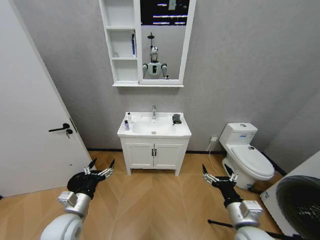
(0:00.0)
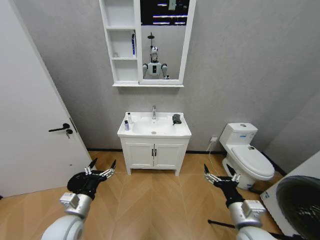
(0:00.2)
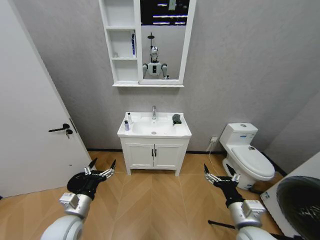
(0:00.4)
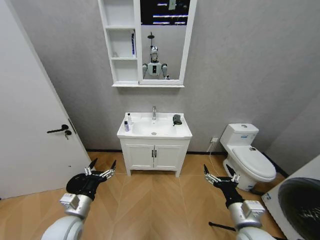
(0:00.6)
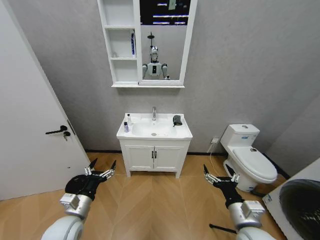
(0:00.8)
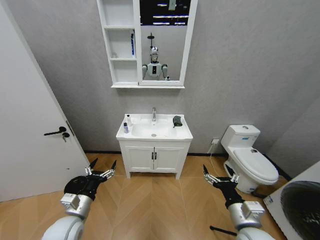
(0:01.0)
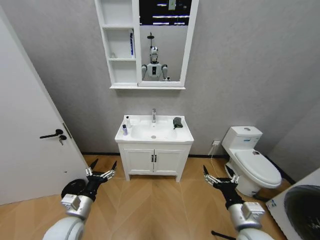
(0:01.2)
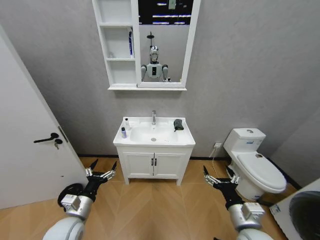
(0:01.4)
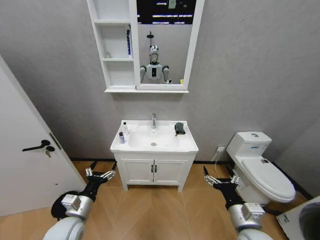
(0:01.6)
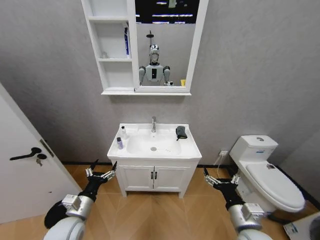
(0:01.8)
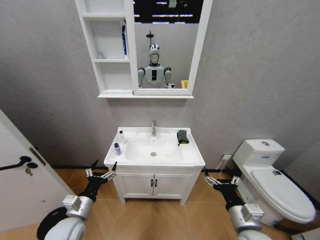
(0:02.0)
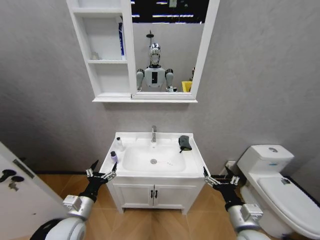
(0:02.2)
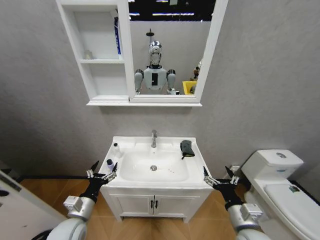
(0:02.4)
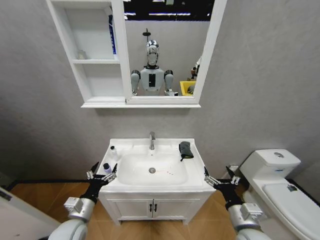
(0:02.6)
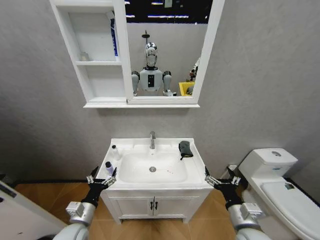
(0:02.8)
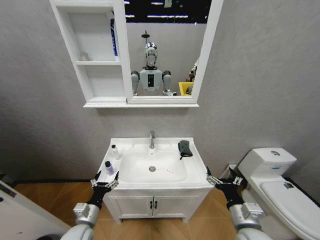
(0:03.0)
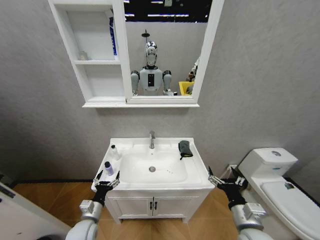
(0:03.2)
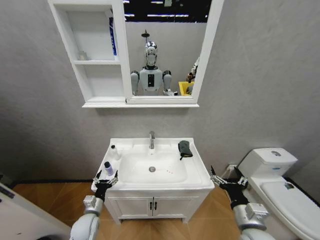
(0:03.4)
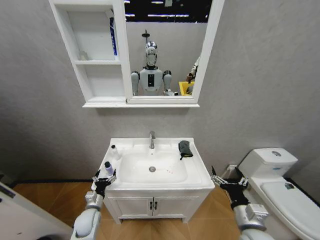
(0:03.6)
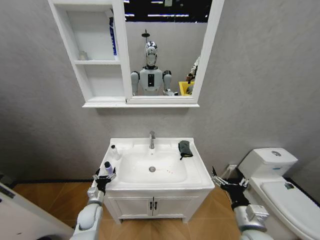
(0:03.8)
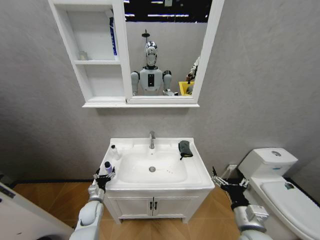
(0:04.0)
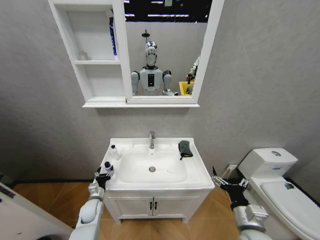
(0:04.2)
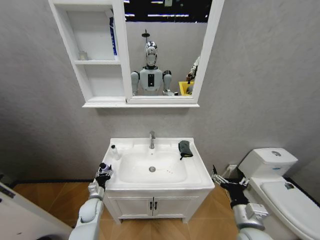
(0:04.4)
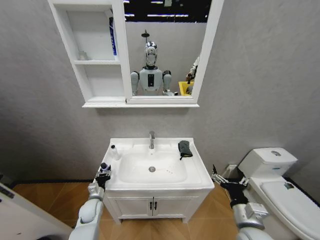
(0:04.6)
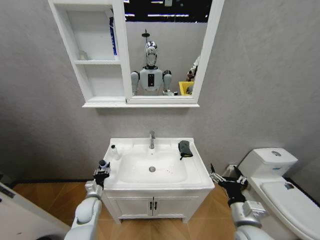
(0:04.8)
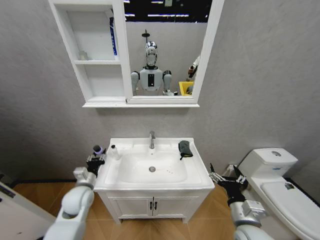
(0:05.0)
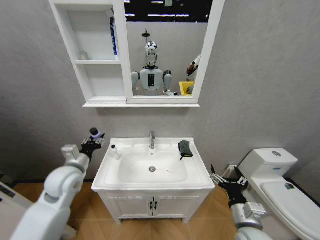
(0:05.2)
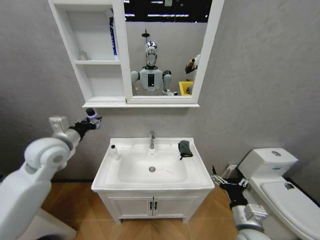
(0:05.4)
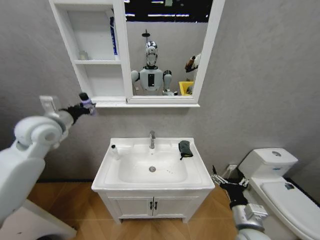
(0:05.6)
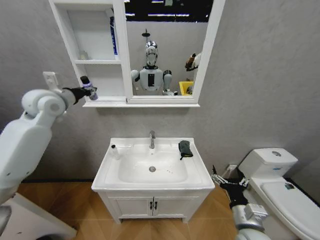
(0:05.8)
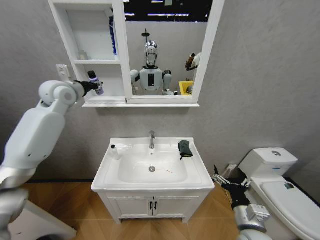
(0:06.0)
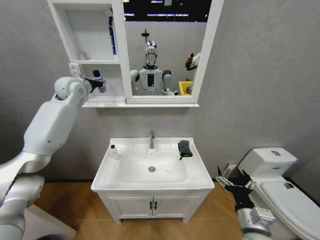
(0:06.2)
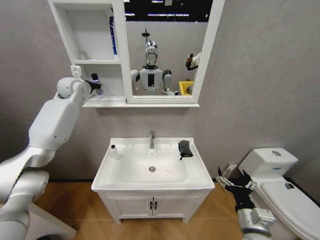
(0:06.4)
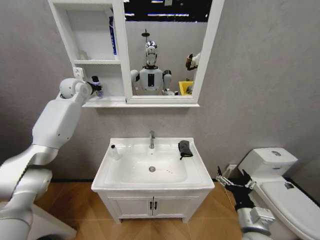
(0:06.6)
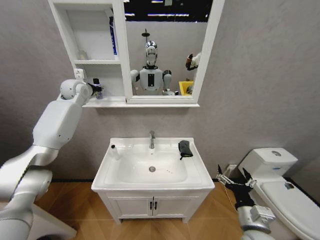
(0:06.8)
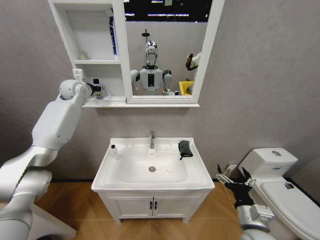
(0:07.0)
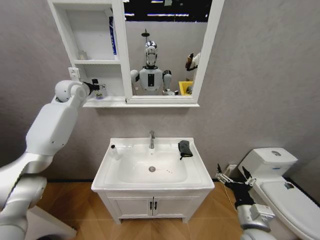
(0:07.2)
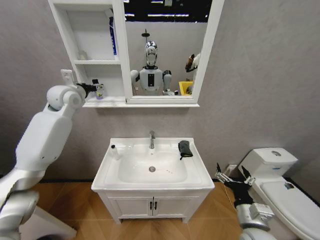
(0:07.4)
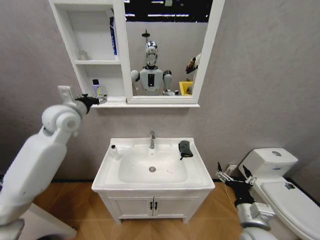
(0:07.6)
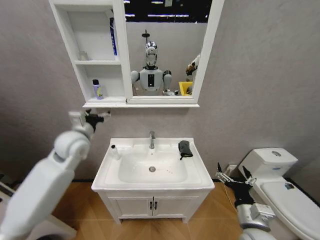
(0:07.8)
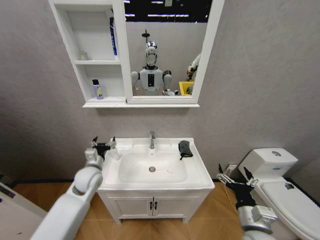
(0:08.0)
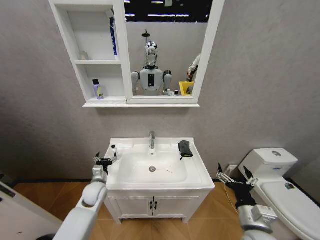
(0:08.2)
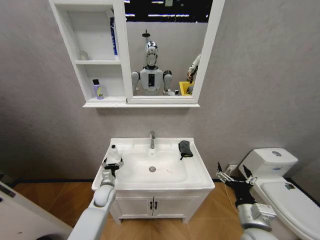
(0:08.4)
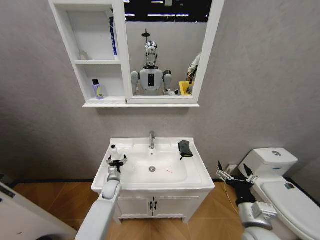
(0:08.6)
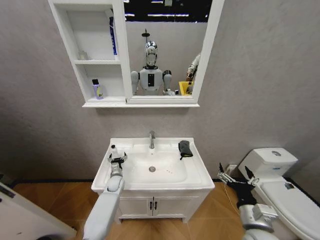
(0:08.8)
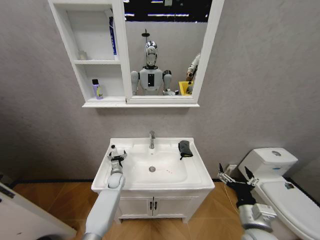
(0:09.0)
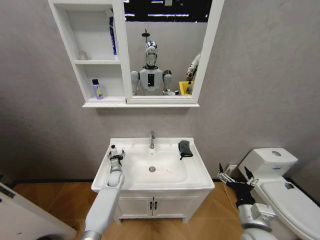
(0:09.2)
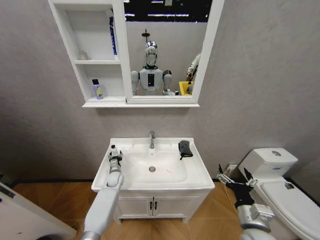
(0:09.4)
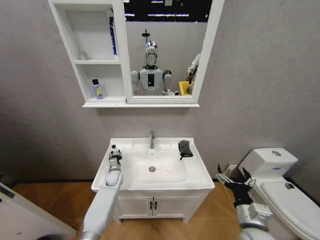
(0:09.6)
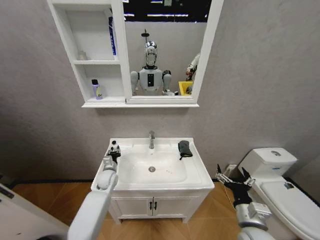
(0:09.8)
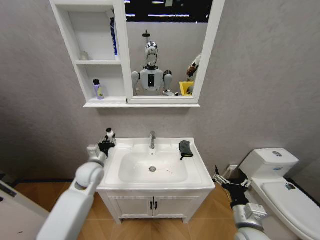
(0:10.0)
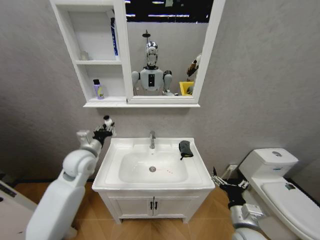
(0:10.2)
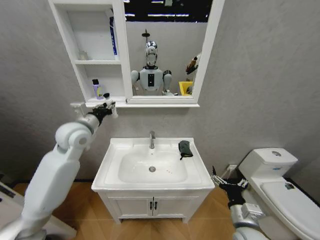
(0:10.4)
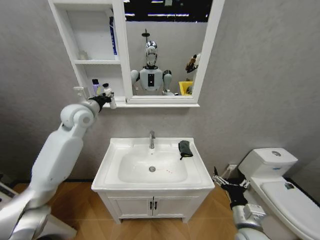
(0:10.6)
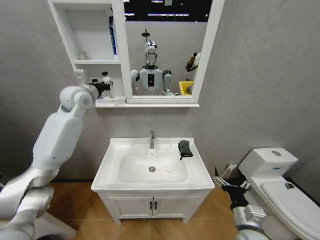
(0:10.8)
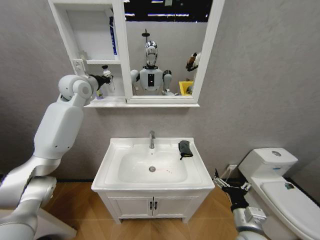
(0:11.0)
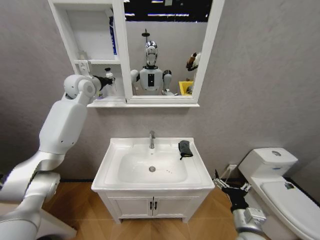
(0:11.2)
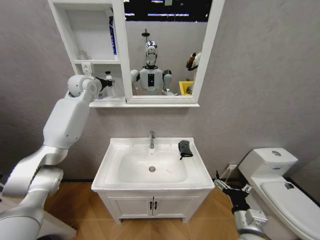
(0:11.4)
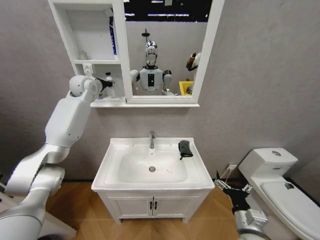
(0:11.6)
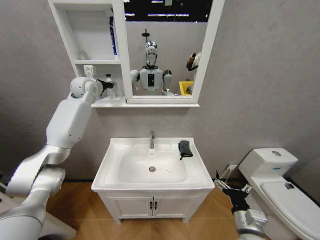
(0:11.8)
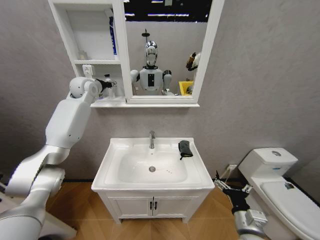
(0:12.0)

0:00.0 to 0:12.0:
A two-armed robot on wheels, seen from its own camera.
Task of the whole recording: Move facial cleanser and shampoo from washbasin to cabinet, then wipe washbasin with towel.
0:01.6 to 0:03.0: The left gripper travels downward by some 5 cm.
0:03.0 to 0:04.4: The left gripper moves forward and downward, approximately 15 cm, and closes up.
0:04.4 to 0:06.0: The left gripper travels upward by approximately 50 cm, and closes its fingers.
0:06.0 to 0:07.6: The left gripper is displaced backward and downward by some 10 cm, and opens.
0:07.6 to 0:09.0: The left gripper goes about 40 cm downward.
0:09.0 to 0:10.4: The left gripper shifts about 40 cm upward, and closes.
0:10.4 to 0:12.0: The left gripper shifts some 25 cm forward and upward, and opens its fingers.

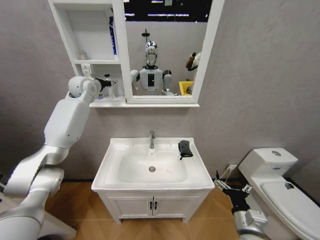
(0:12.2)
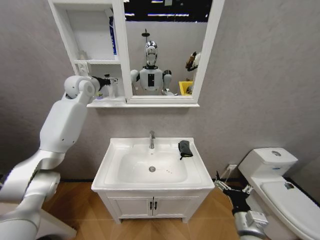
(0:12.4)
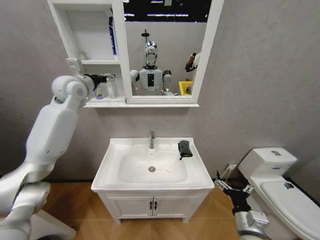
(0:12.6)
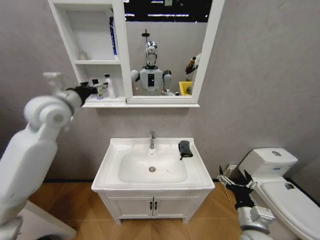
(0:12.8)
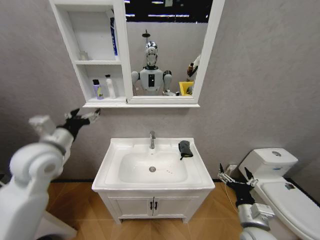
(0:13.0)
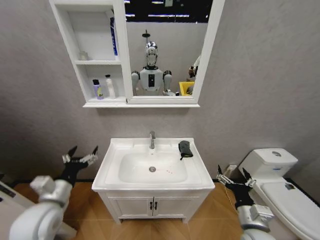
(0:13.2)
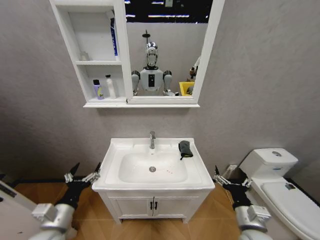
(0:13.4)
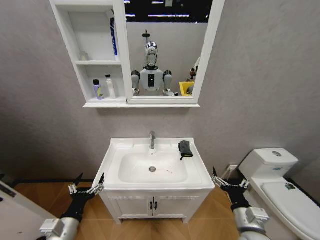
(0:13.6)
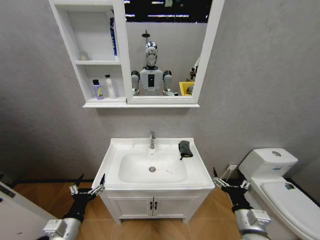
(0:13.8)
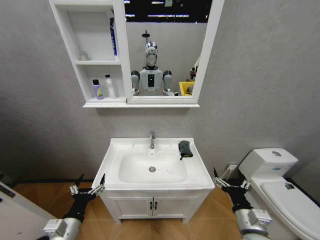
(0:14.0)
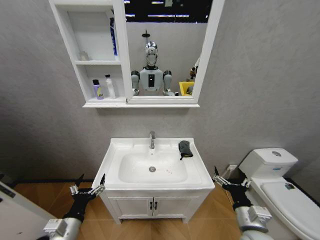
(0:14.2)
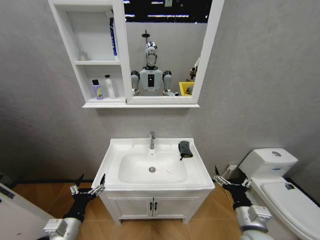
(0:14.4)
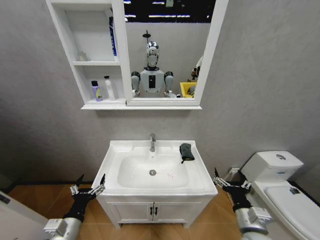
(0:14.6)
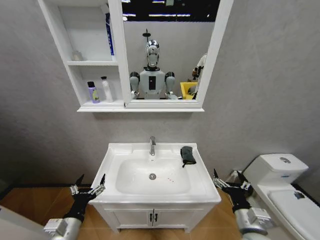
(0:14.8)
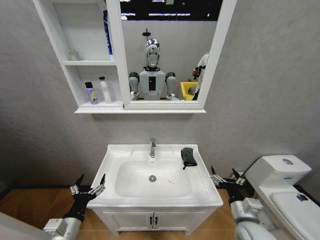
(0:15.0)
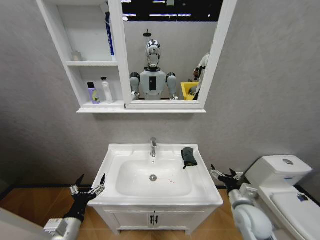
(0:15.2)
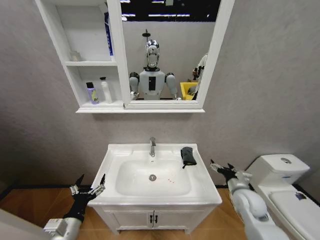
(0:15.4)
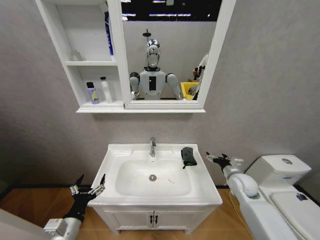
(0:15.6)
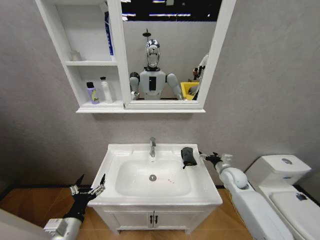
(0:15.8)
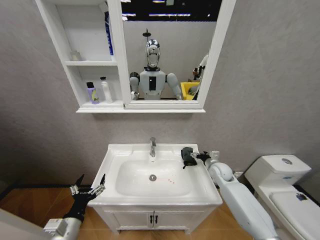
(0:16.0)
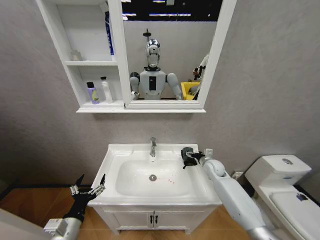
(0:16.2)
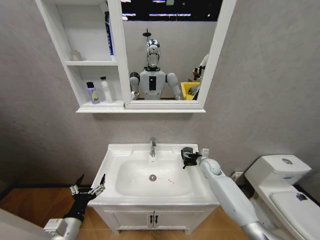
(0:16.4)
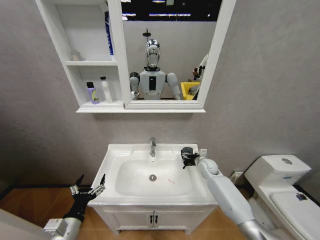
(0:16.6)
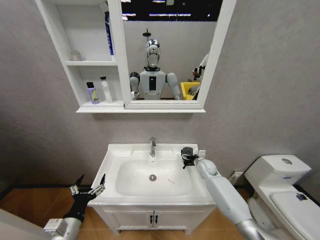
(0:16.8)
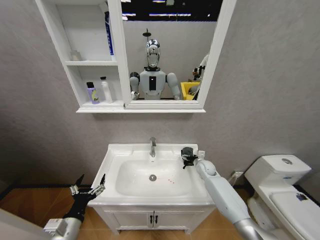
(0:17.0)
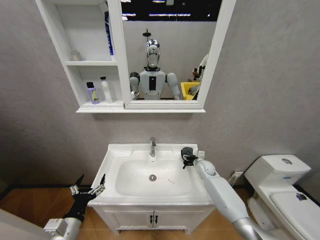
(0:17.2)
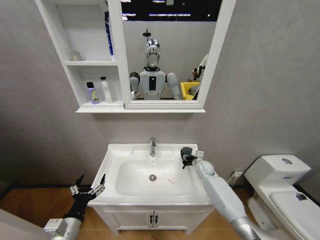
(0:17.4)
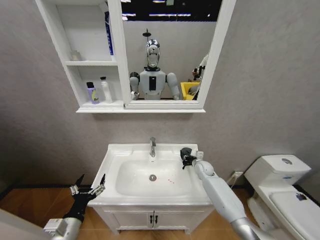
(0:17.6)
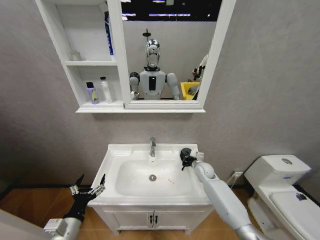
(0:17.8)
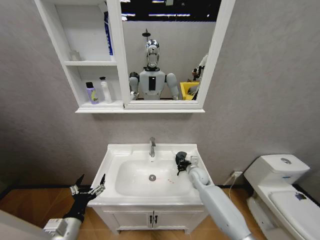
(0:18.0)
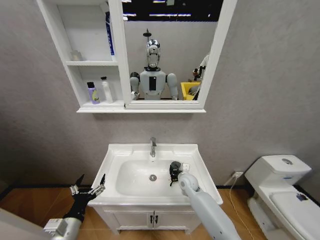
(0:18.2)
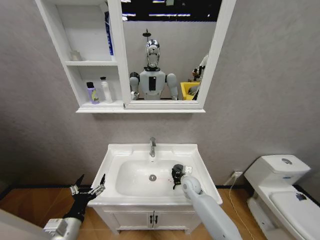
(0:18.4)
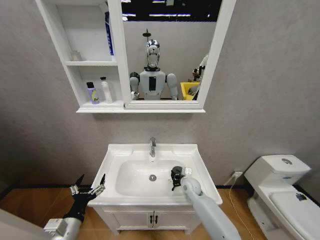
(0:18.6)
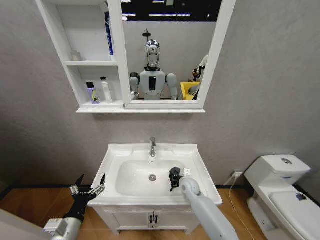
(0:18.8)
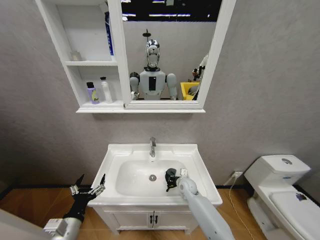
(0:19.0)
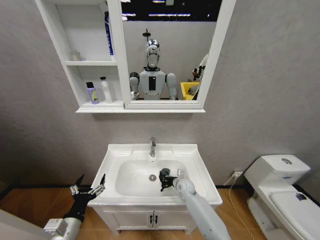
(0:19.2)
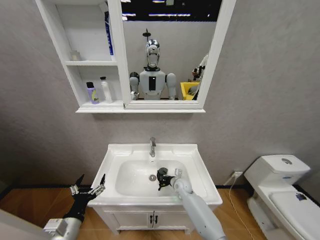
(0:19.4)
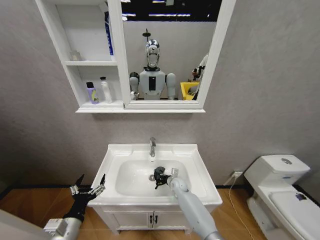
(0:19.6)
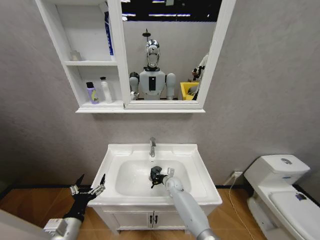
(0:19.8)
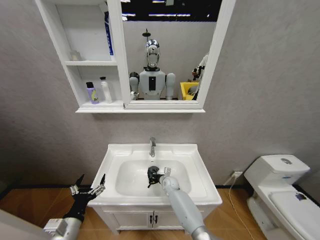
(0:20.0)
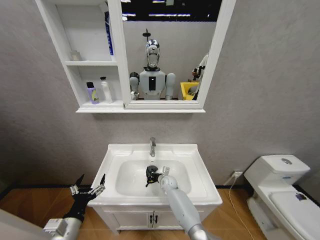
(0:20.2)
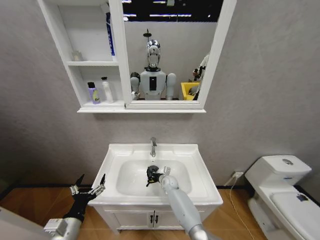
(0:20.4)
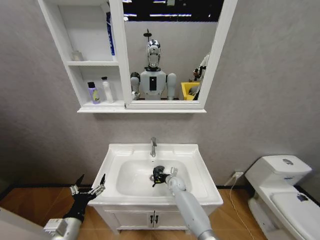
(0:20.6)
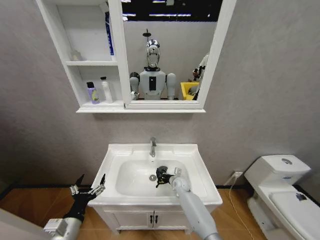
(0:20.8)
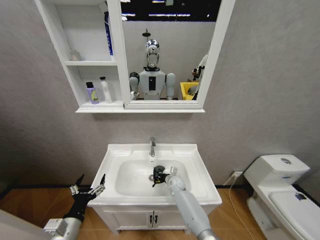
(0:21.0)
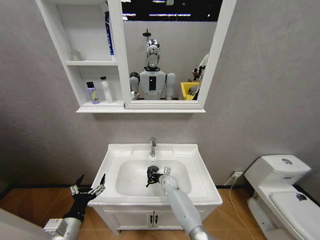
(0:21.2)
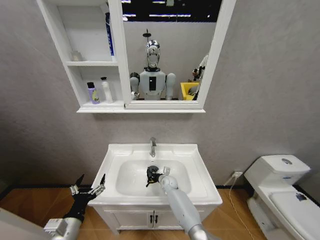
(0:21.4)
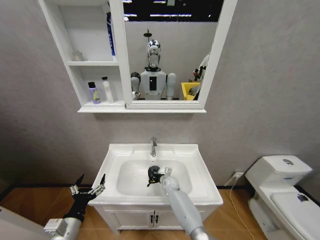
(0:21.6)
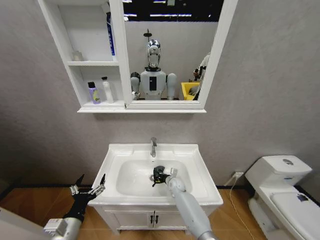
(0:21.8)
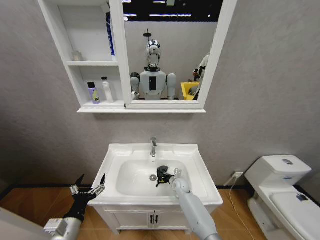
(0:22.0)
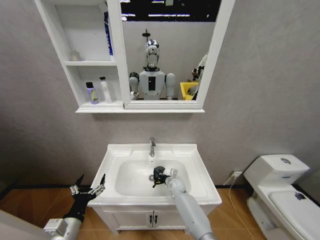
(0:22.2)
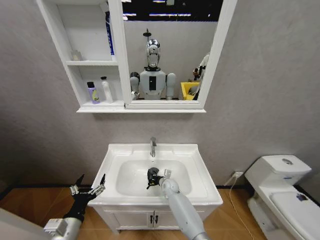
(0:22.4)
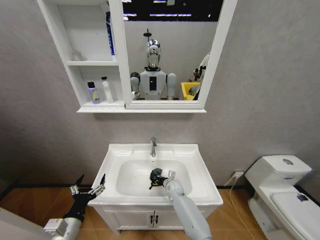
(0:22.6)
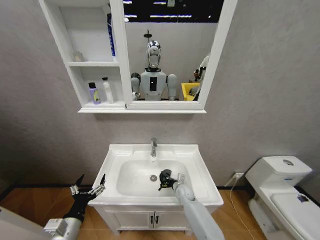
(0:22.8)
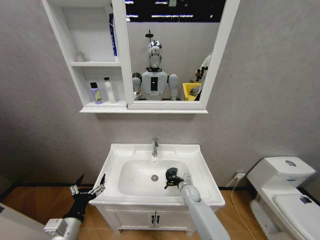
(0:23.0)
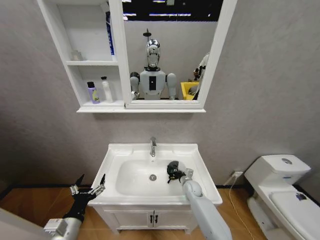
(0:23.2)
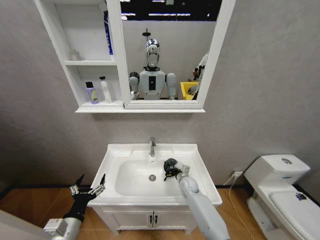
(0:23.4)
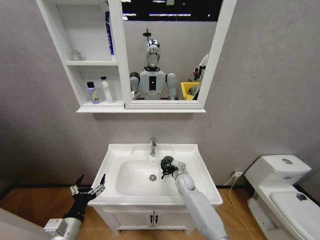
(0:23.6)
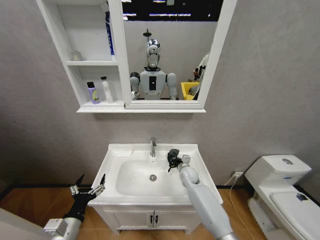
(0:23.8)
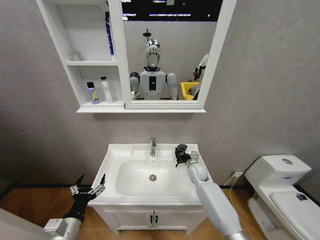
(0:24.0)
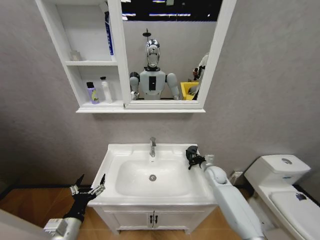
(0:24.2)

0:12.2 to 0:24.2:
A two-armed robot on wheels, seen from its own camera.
Task of the whole recording: Move facial cleanser and shampoo from washbasin to cabinet, then wipe washbasin with towel.
0:12.2 to 0:13.8: The left gripper shifts roughly 60 cm backward and downward.
0:13.8 to 0:15.2: The right gripper is displaced forward by approximately 10 cm.
0:15.2 to 0:16.6: The right gripper moves forward, approximately 25 cm.
0:16.6 to 0:18.2: The right gripper is displaced to the left and backward by approximately 15 cm, and closes up.
0:18.2 to 0:19.8: The right gripper is displaced downward and to the left by roughly 10 cm.
0:19.8 to 0:21.2: The grippers move only a little.
0:22.6 to 0:24.2: The right gripper swings left and right, about 20 cm each way, with 2 reversals.
